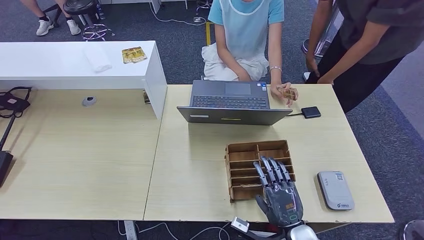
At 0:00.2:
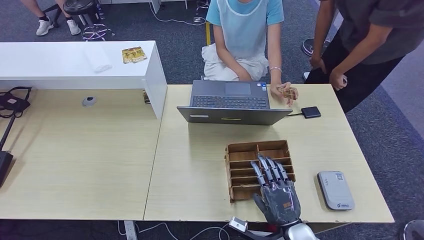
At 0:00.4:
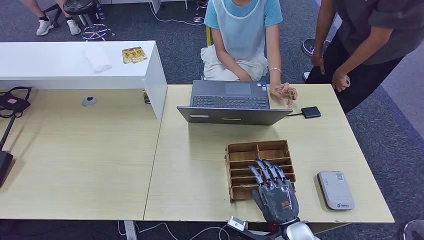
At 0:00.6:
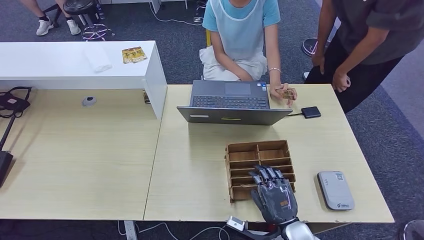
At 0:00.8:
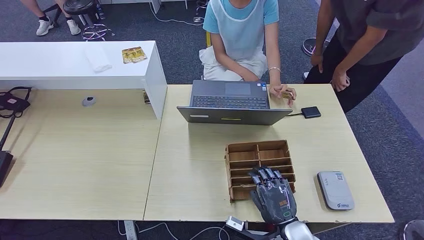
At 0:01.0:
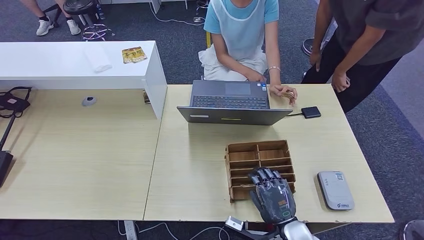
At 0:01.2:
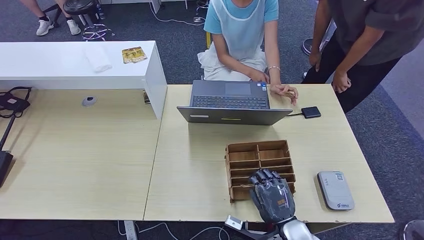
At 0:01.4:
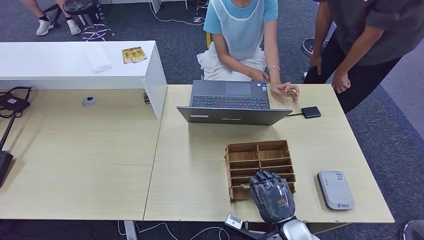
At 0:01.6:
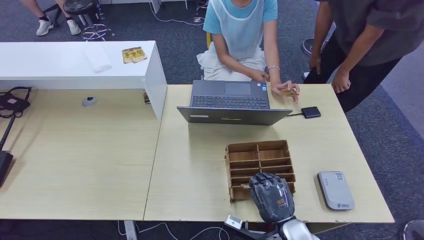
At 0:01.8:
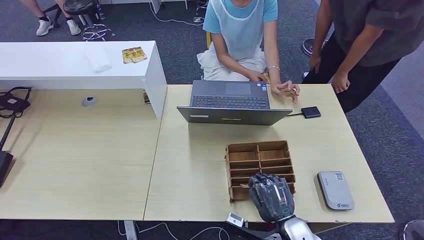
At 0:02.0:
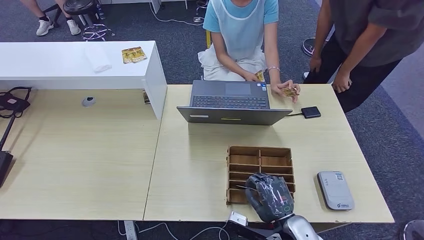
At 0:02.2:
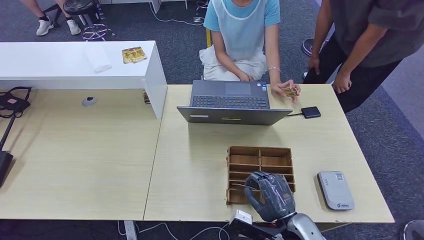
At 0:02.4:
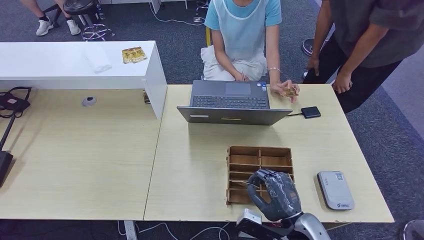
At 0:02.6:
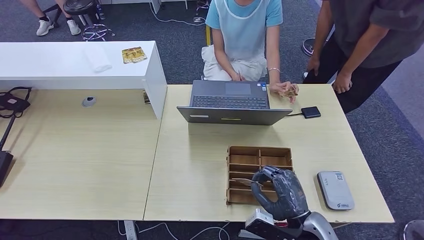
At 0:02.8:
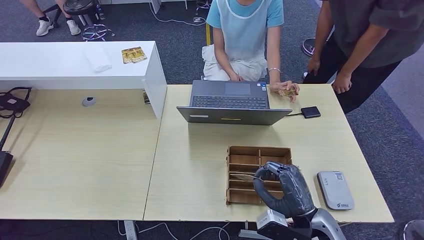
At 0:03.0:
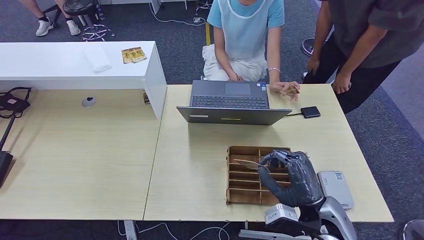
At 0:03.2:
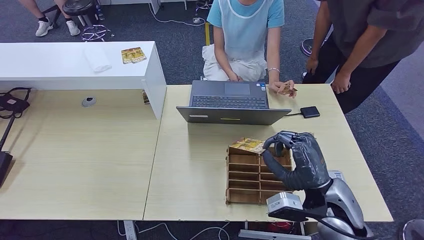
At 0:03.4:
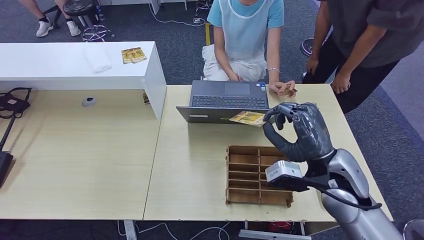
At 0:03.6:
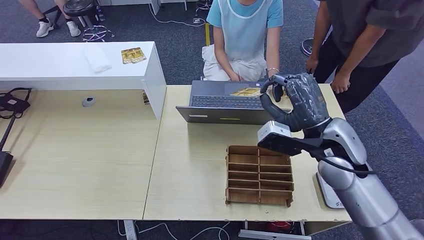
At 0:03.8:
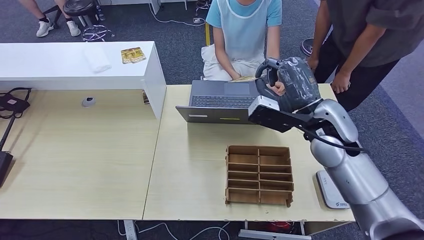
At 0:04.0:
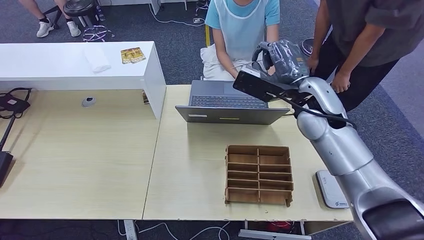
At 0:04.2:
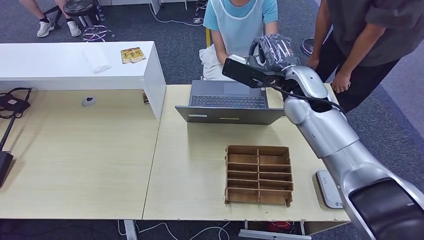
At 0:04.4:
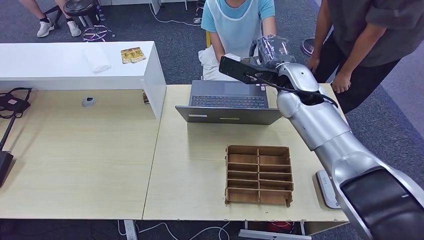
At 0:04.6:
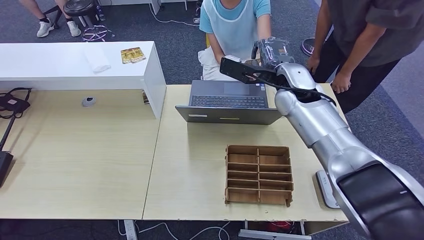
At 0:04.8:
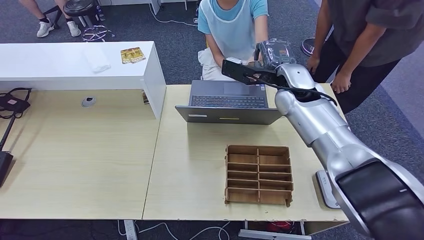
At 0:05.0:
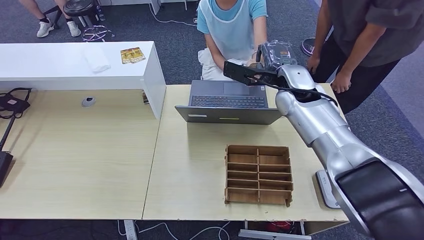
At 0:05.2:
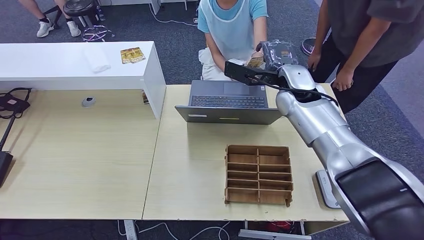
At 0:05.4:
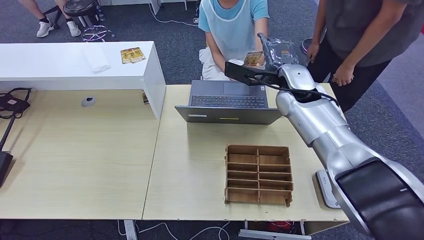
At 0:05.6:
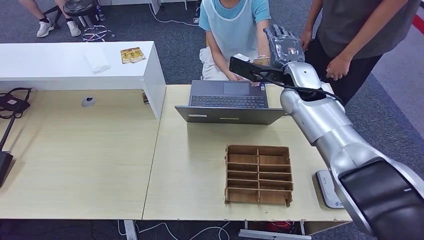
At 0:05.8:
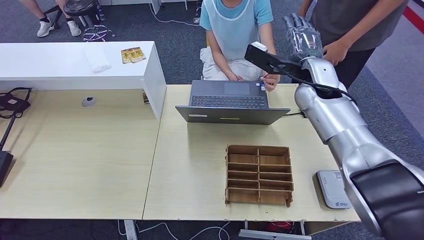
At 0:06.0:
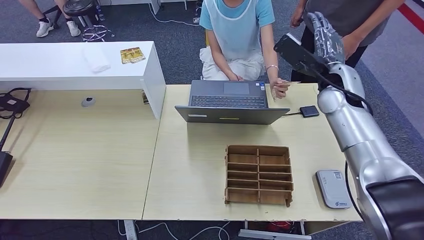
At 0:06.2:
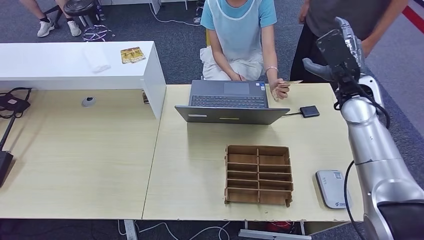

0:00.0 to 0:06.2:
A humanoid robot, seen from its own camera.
Step, 0:00.0 to 0:02.0: Pick up the room key from the key card box.
Step, 0:02.2 to 0:06.2: Hand the room key to the person.
0:00.0 to 0:01.6: The hands stay close to where they were, moving slightly.
0:01.6 to 0:03.2: The right hand is displaced upward and forward by approximately 15 cm.
0:03.2 to 0:04.6: The right hand shifts roughly 25 cm forward and upward.
